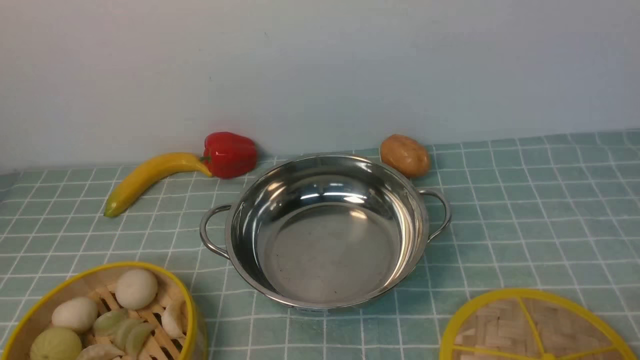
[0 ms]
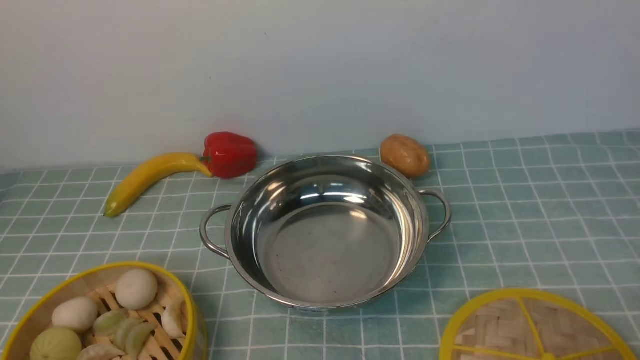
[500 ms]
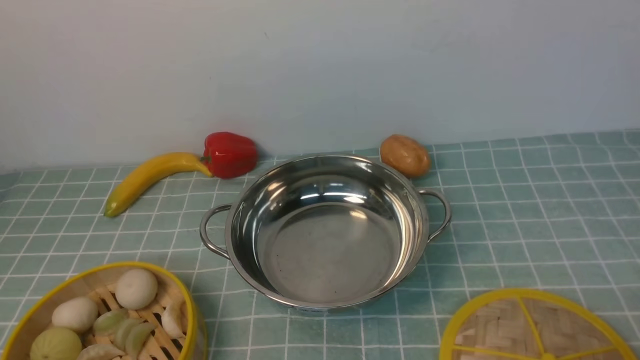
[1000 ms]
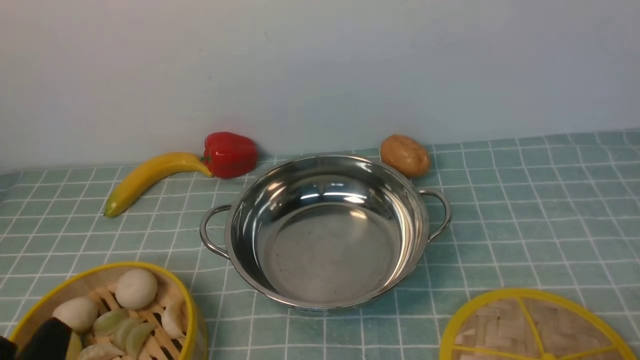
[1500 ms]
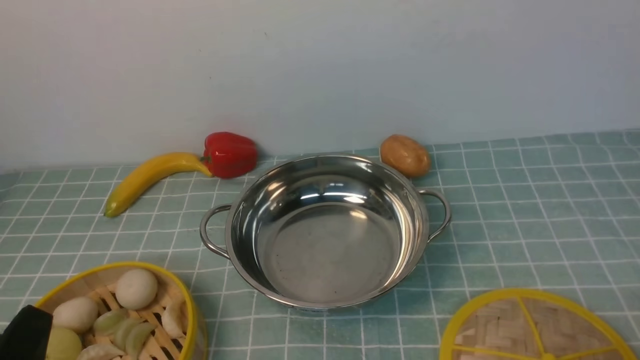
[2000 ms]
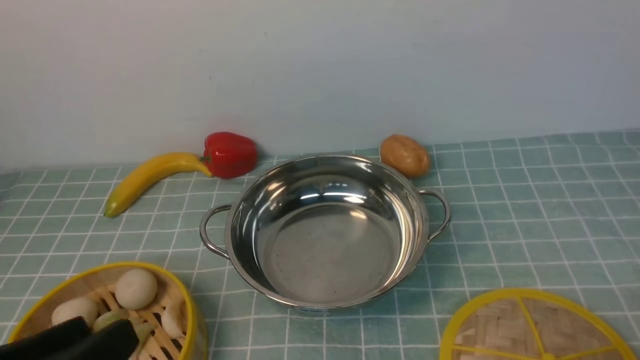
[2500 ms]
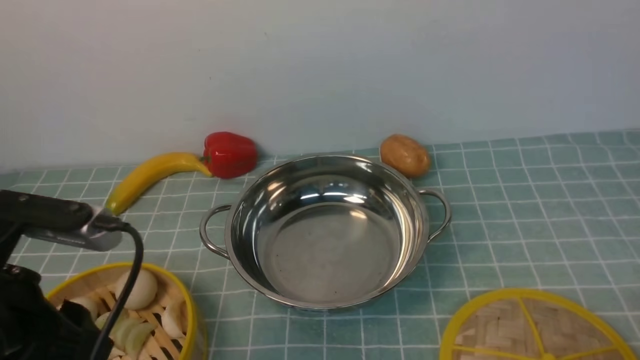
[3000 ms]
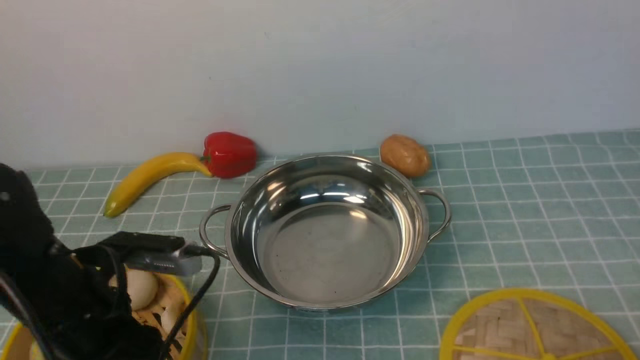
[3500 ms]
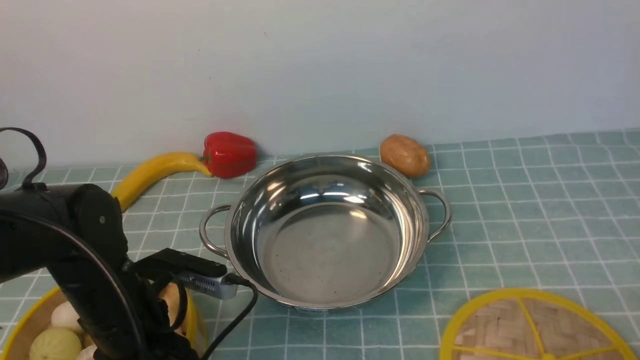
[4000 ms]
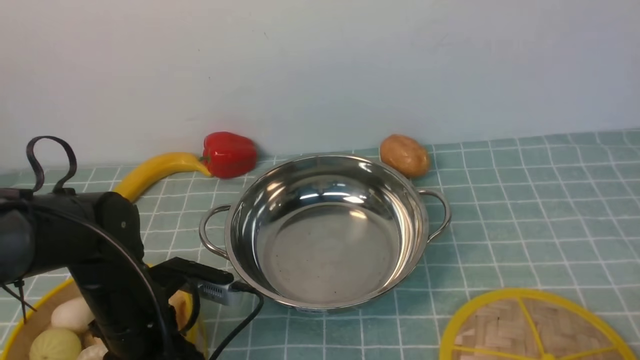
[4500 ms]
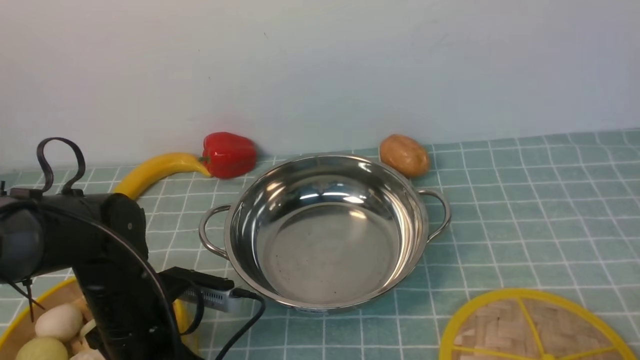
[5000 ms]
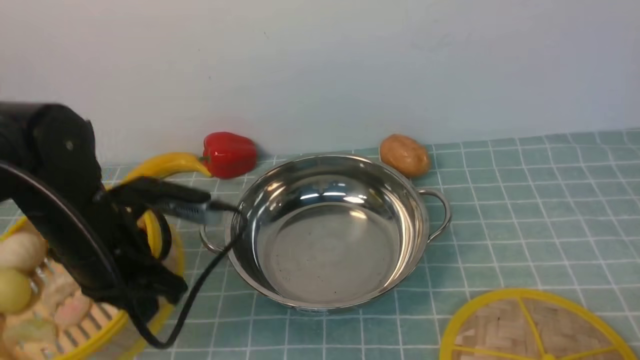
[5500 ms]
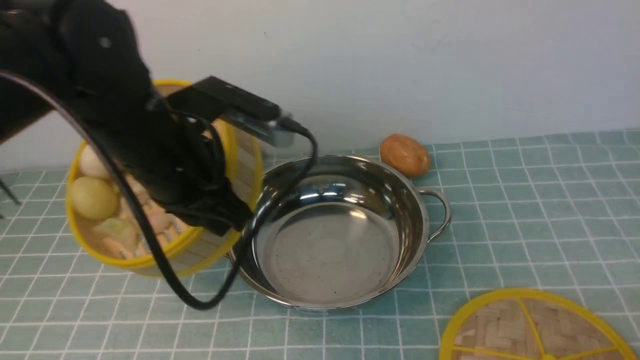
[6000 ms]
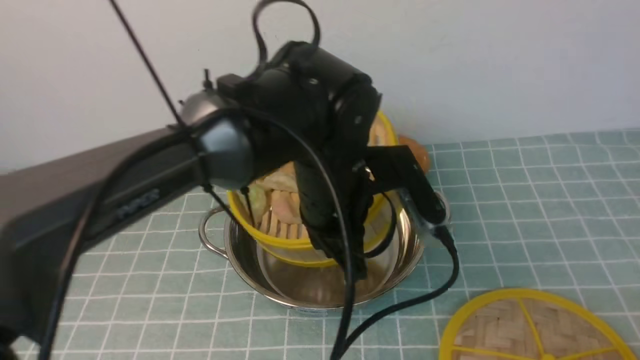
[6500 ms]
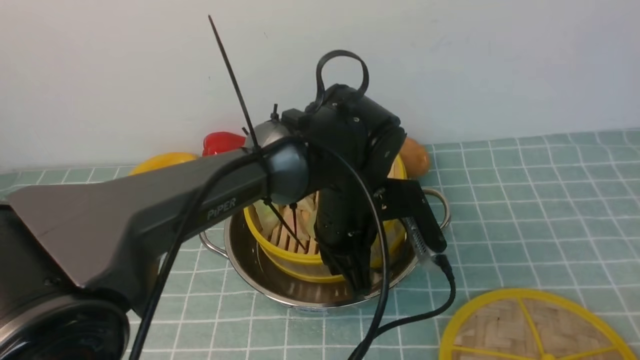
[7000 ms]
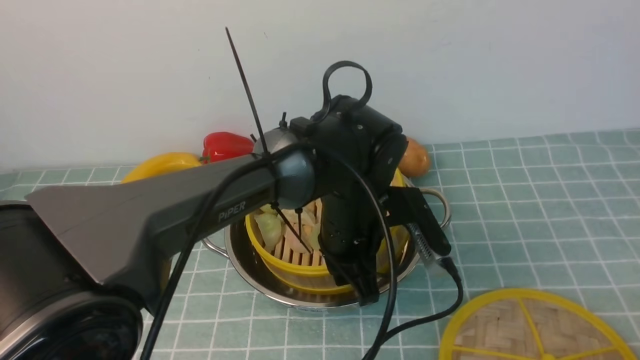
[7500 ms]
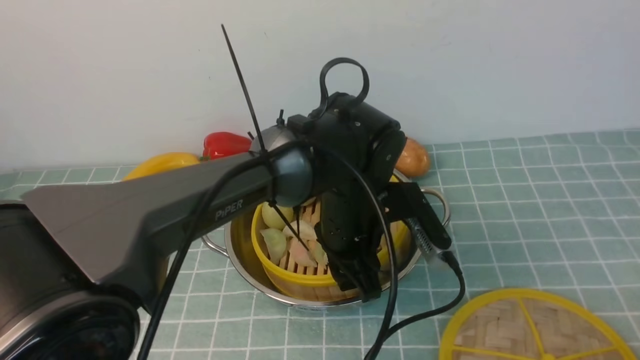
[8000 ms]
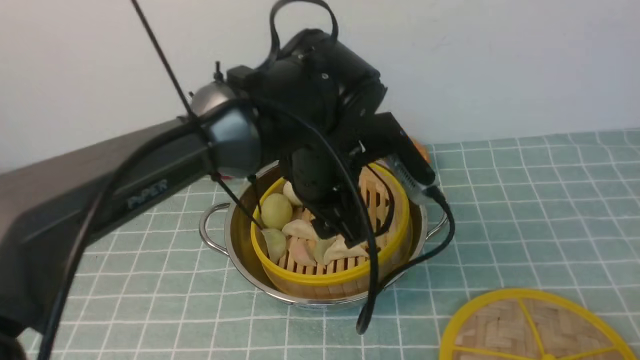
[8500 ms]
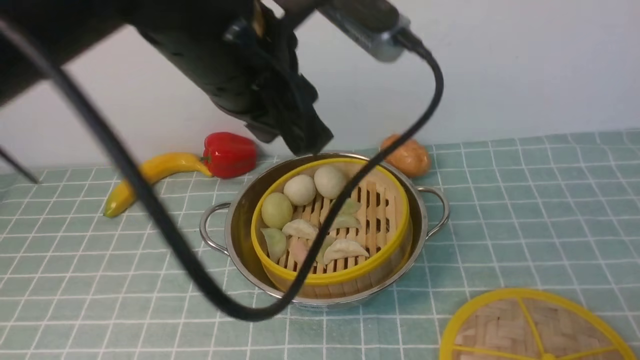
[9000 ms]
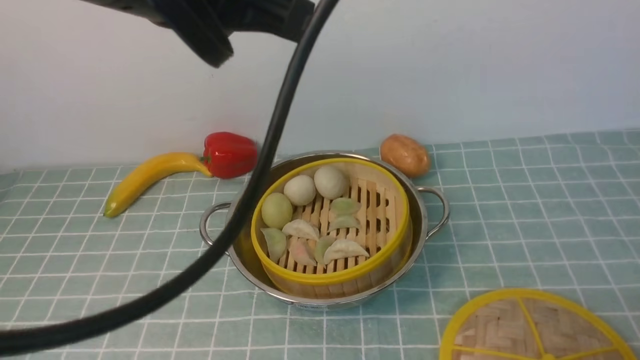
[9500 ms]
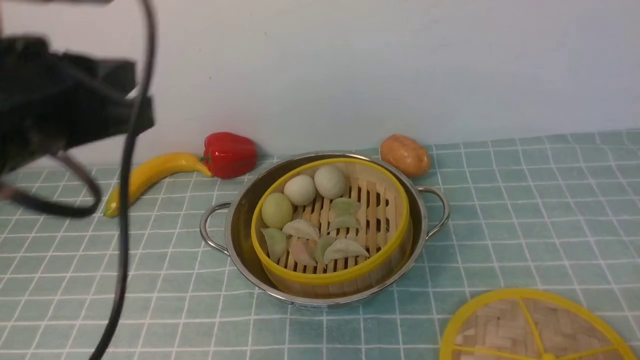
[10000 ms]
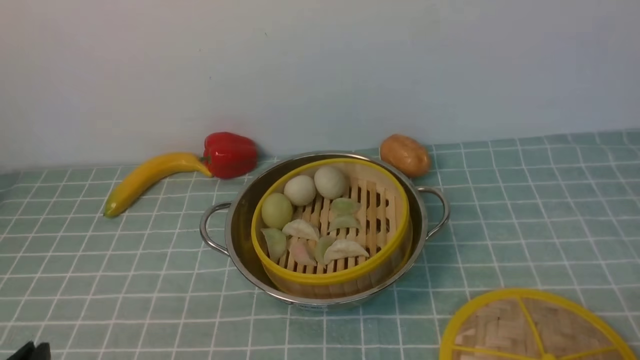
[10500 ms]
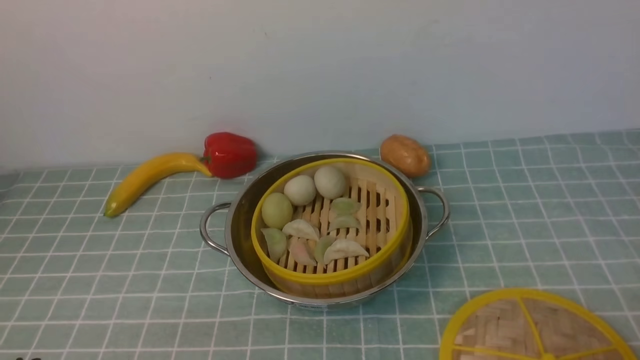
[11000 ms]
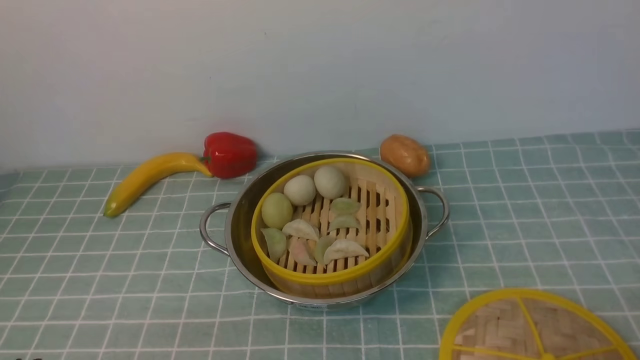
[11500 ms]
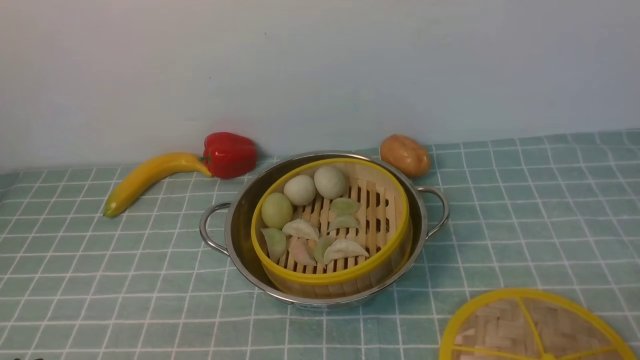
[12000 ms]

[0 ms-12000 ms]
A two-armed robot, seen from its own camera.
Task of the whole recording: place the steamer in the pot on the blue tablecloth, and put the lid on the steamer.
Step, 0 ms to 5500 ms: use the left arm to lift the steamer closest to it.
Step, 6000 ms to 8500 ms: use the left arm to put the steamer into the iron steamer pot in the middle.
2000 ms to 4000 ms: The left gripper travels forward by approximately 20 cm, and closes its fingers.
4000 ms to 6000 ms: The left gripper goes roughly 15 cm upward, to the right and forward, and closes up.
6000 ms to 8000 ms: The left gripper is displaced to the right and downward by some 20 cm, and opens.
8000 ms to 10000 ms: The left gripper is displaced to the left, upward and backward by some 30 cm, and closes its fingers.
10000 ms to 12000 ms: The left gripper goes some 25 cm downward and backward.

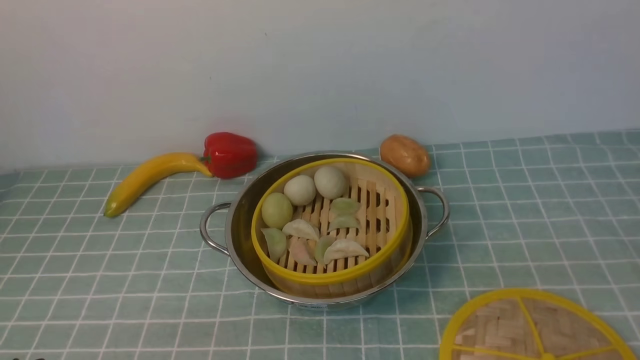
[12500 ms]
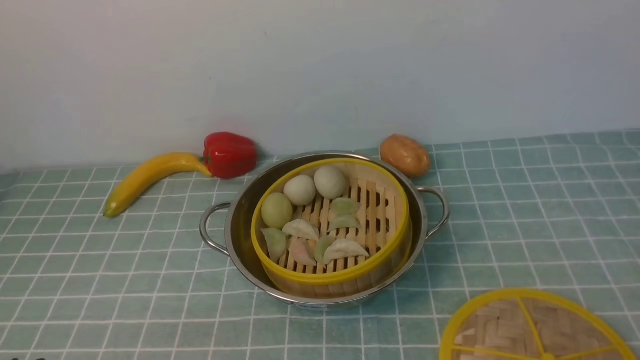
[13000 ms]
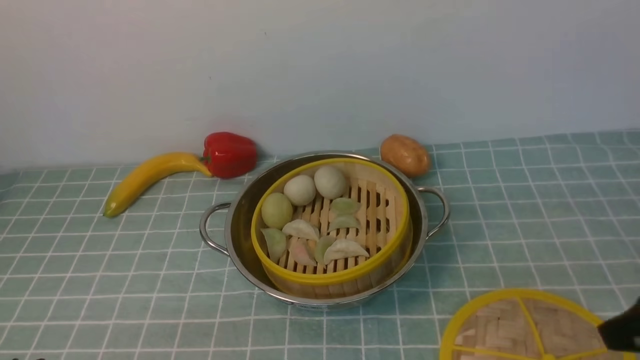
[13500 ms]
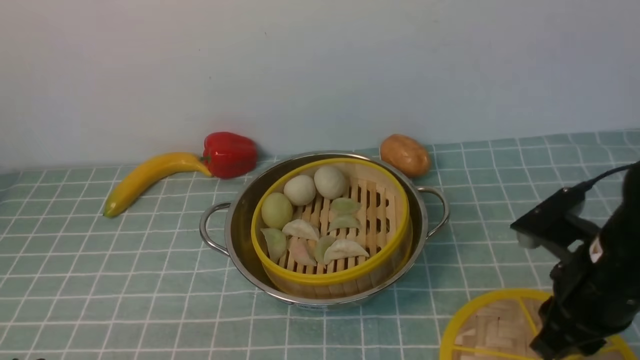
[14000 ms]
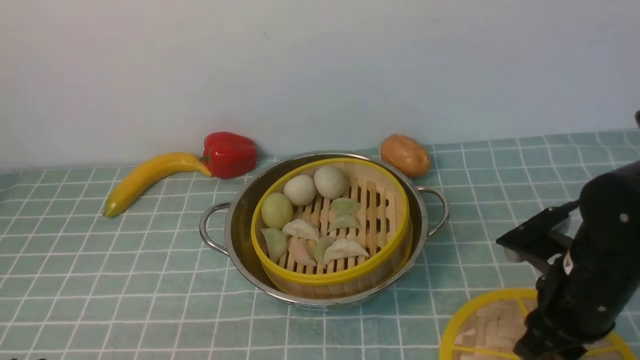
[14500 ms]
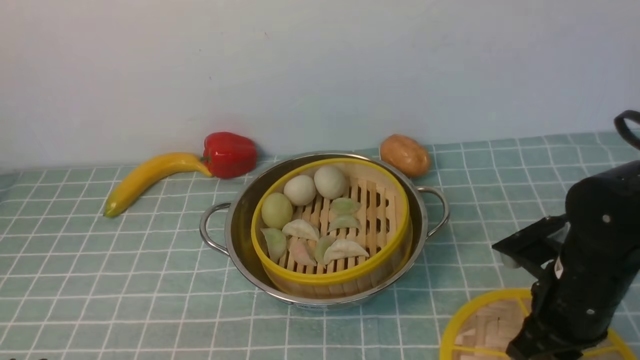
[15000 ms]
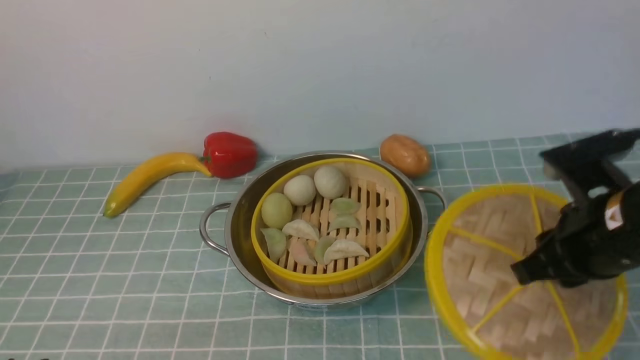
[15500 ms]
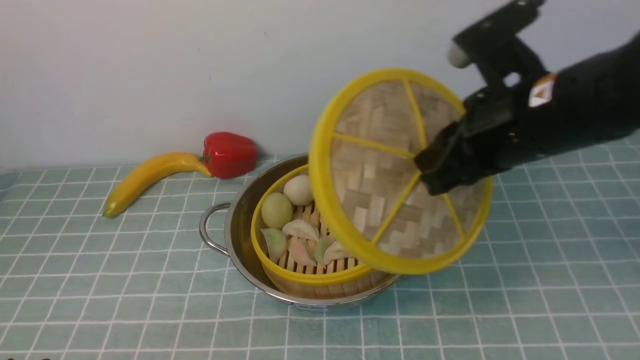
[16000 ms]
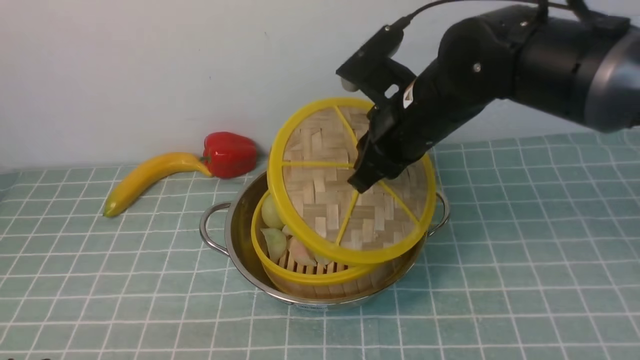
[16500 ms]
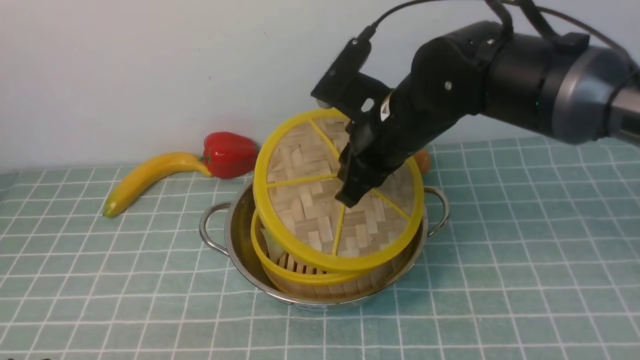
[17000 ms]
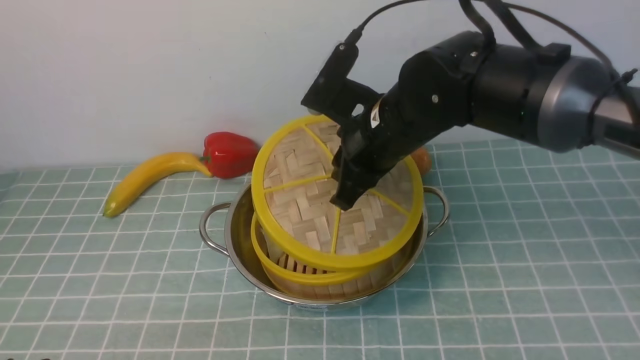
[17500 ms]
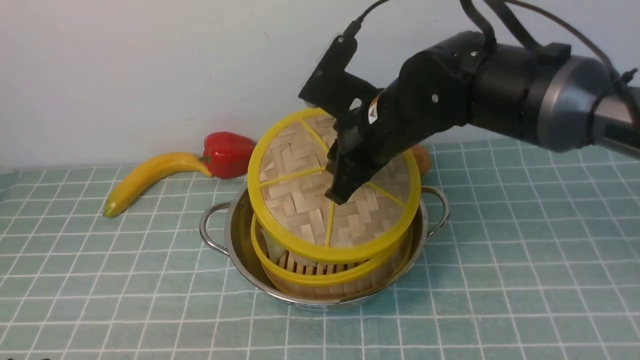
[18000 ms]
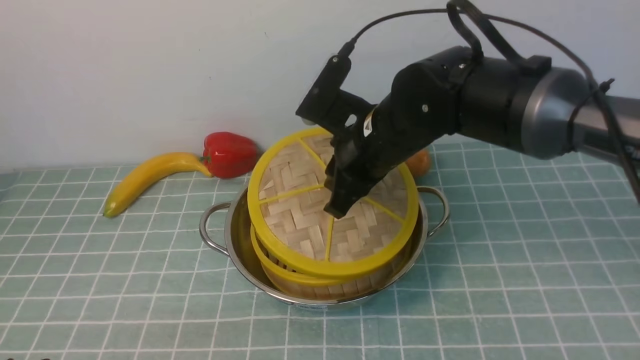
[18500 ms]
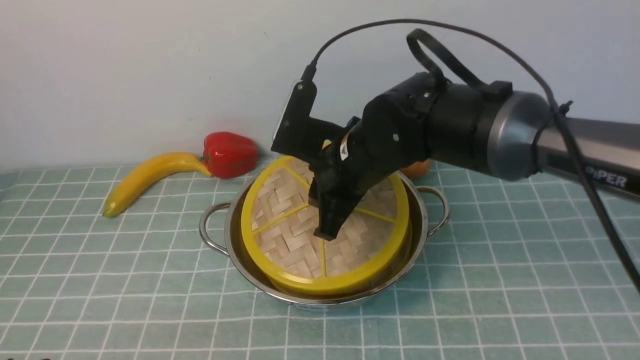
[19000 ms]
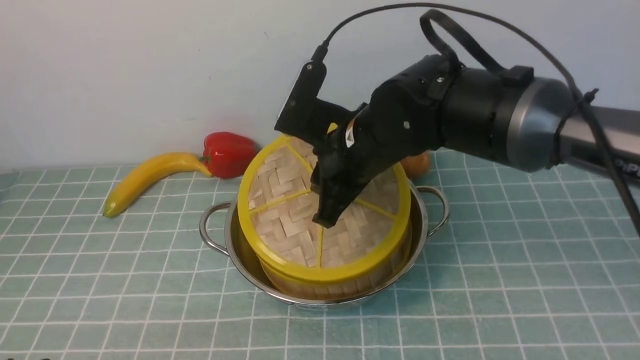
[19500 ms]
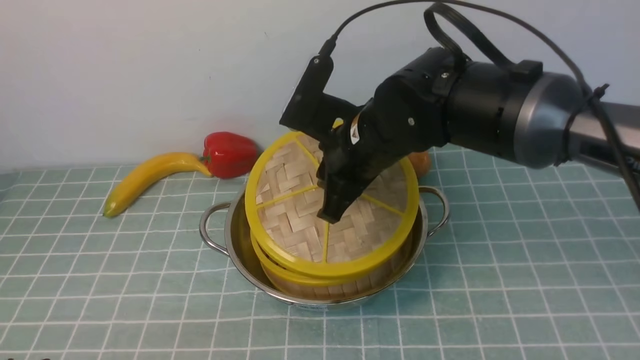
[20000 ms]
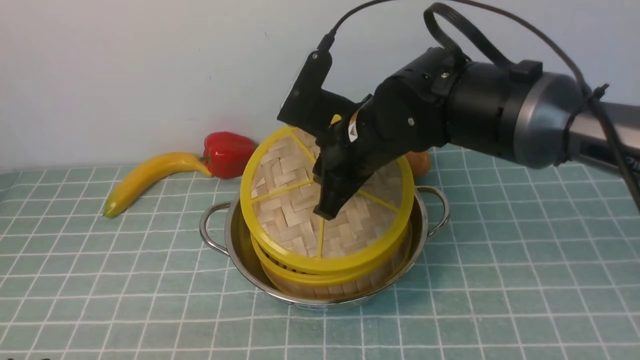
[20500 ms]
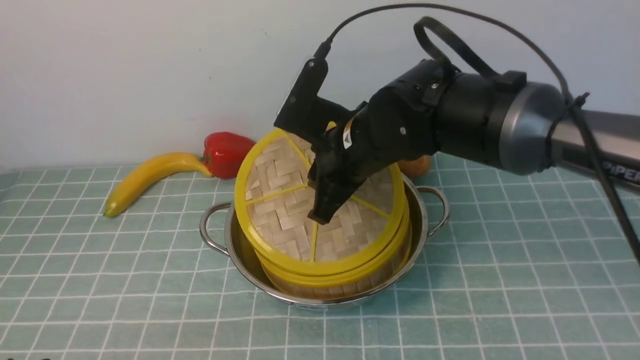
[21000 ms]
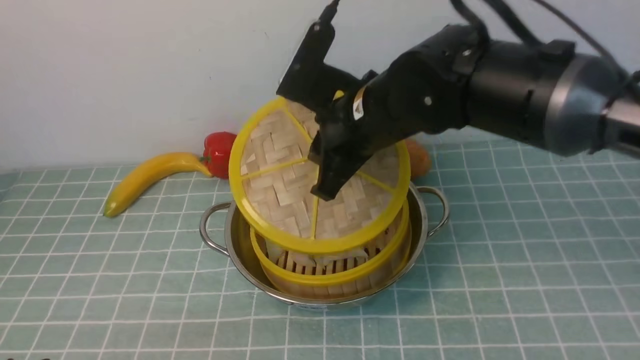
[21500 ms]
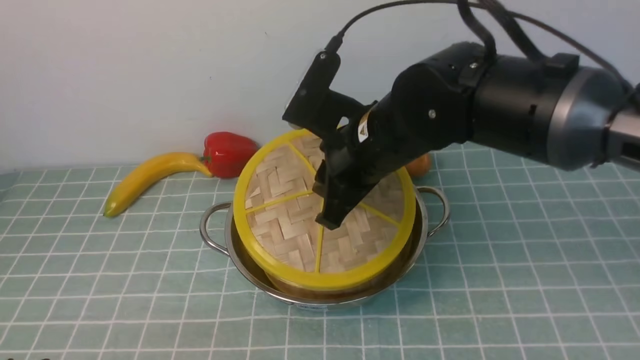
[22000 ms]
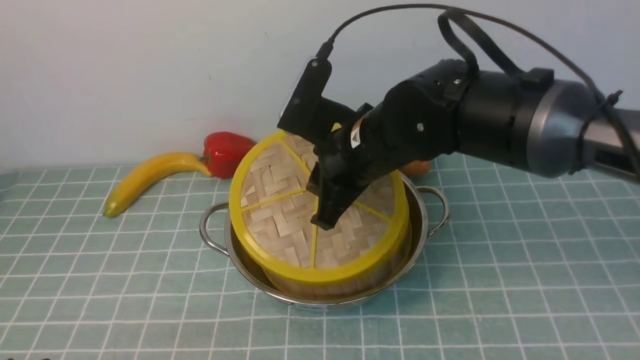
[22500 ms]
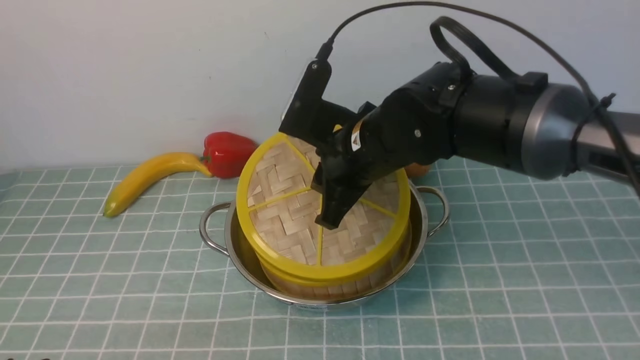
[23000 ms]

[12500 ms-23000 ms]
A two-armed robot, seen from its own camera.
Task of the whole recording: place the steamer in the pot on the blue tablecloth, and put the lid on the steamer.
Step, 12500 ms to 15500 ms: use the right arm to lift the lid of the steamer.
12500 ms to 14500 ms: The right gripper is displaced forward and downward by some 25 cm.
14500 ms to 16500 ms: The right gripper goes roughly 20 cm to the left, forward and upward, and closes its fingers.
16500 ms to 19000 ms: The right gripper travels to the left by some 5 cm.
19000 ms to 23000 ms: The grippers stay close to where they were, moving slightly.
